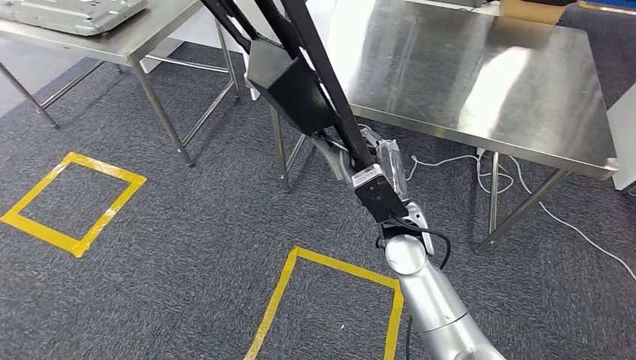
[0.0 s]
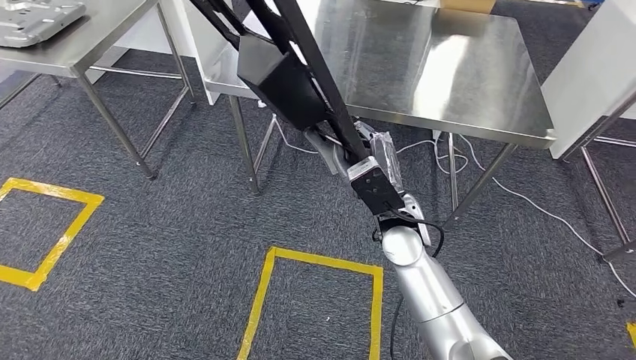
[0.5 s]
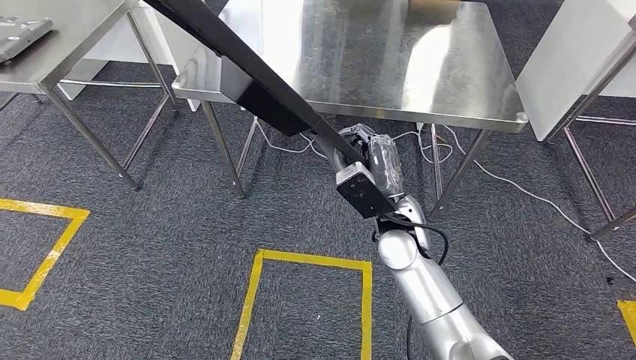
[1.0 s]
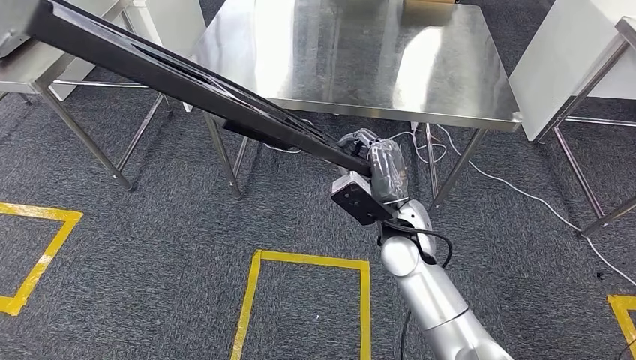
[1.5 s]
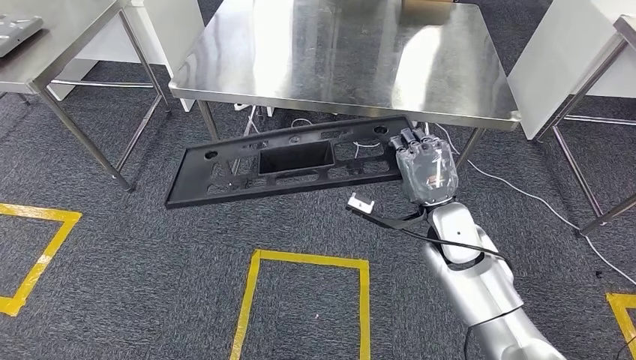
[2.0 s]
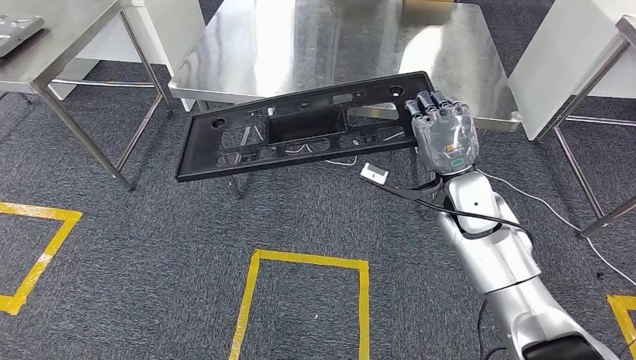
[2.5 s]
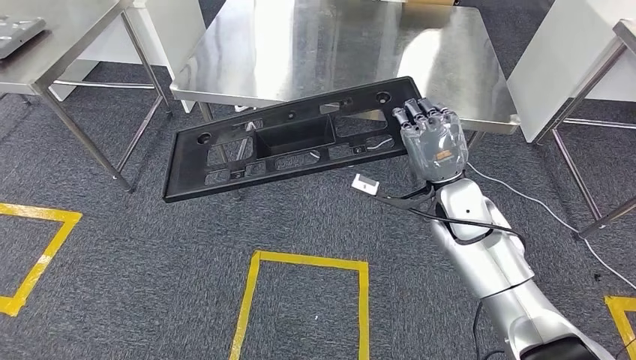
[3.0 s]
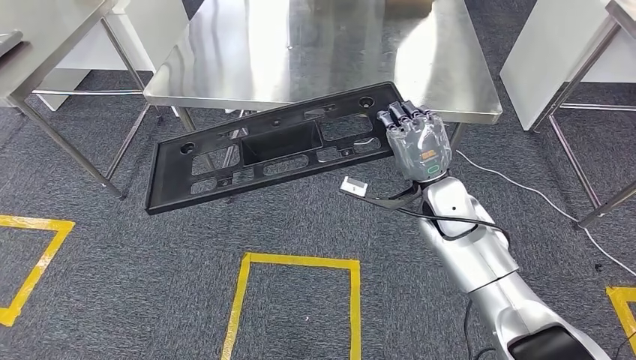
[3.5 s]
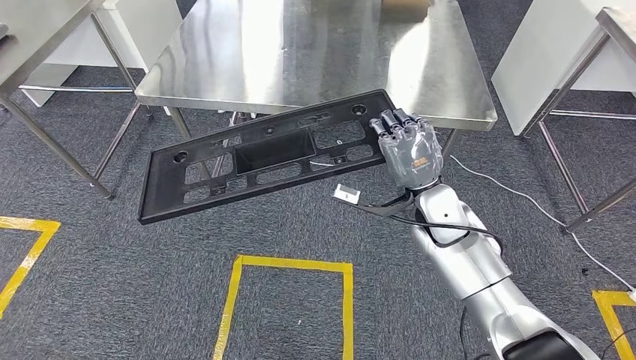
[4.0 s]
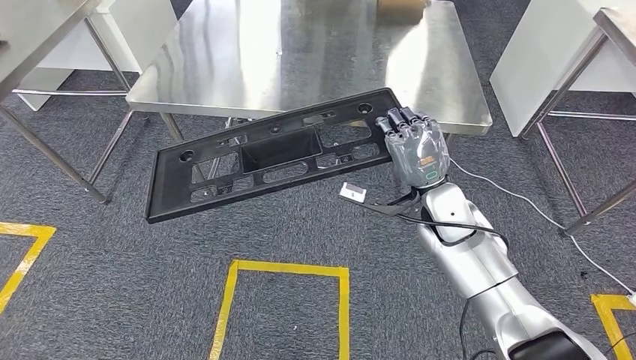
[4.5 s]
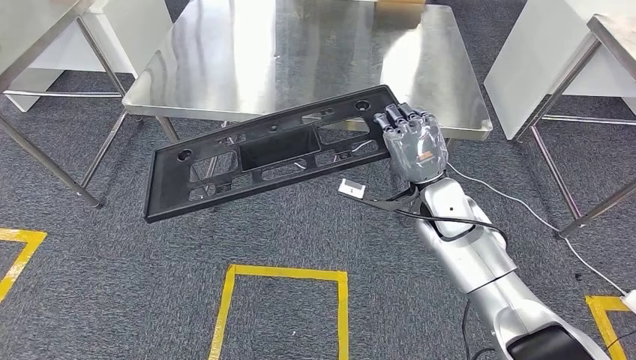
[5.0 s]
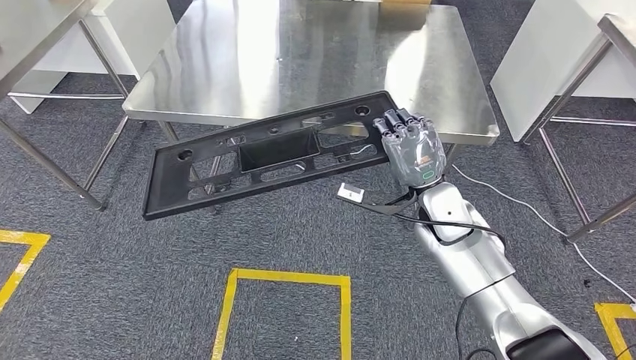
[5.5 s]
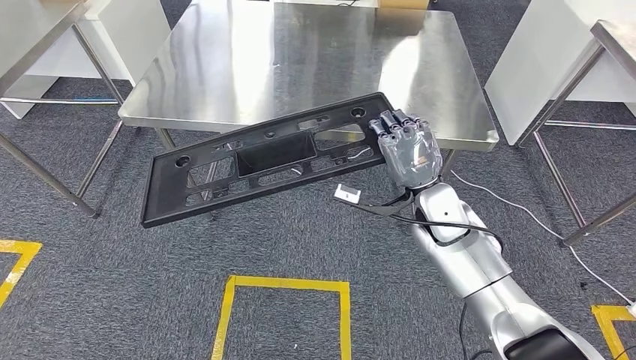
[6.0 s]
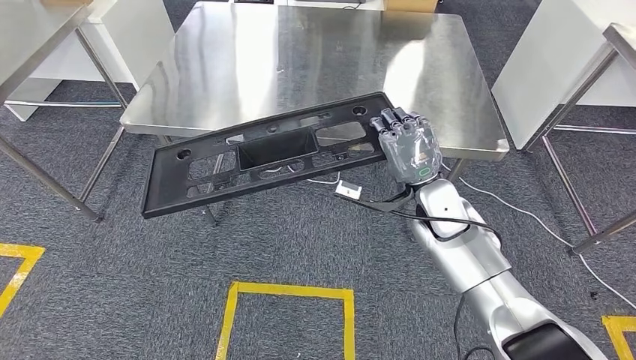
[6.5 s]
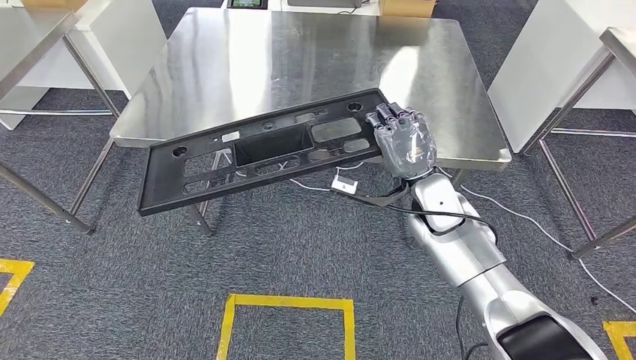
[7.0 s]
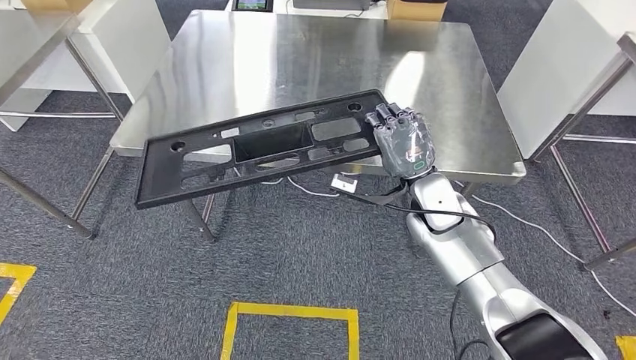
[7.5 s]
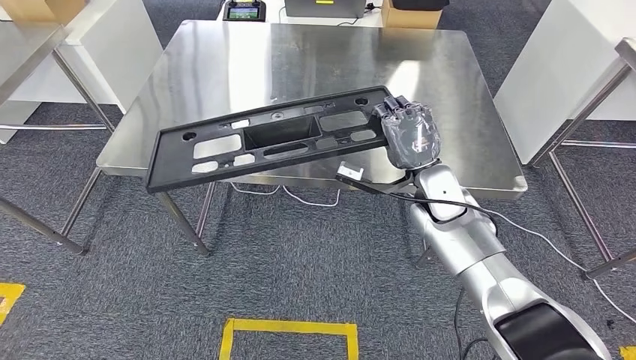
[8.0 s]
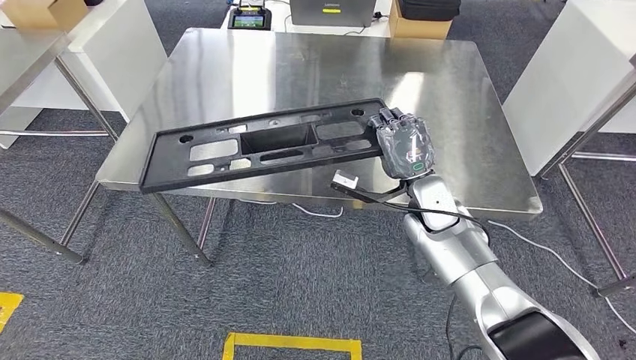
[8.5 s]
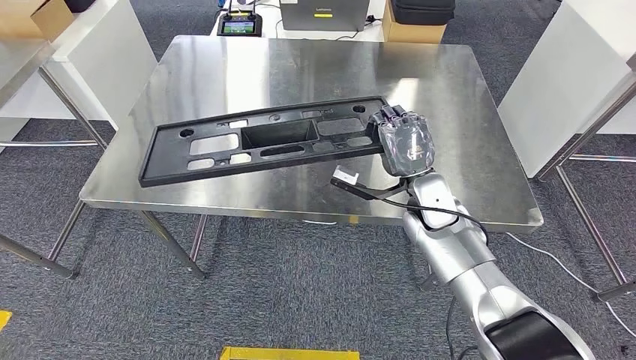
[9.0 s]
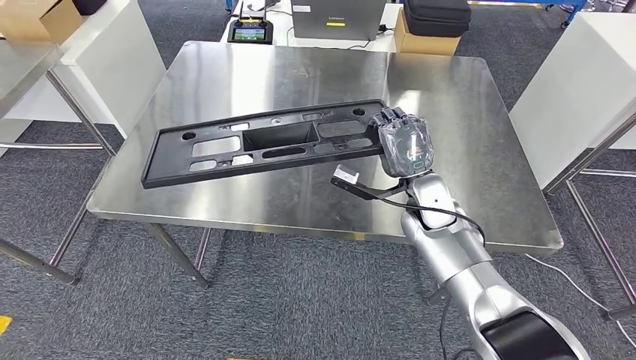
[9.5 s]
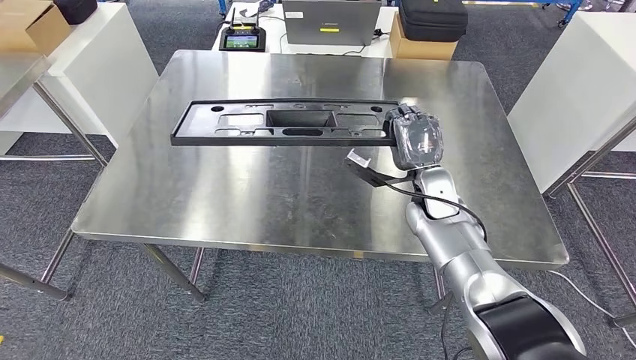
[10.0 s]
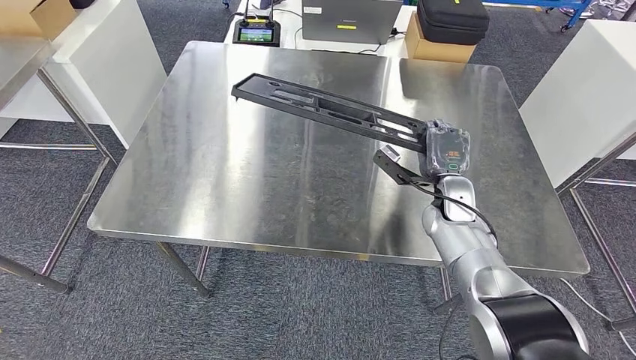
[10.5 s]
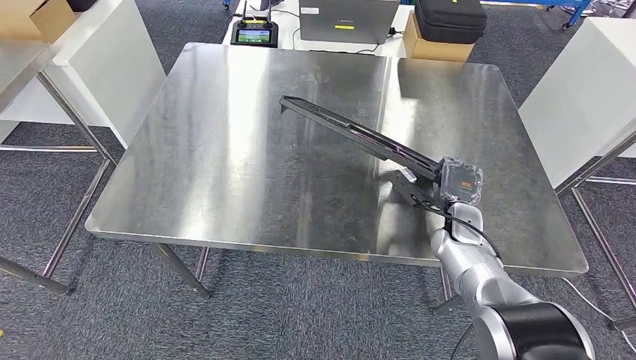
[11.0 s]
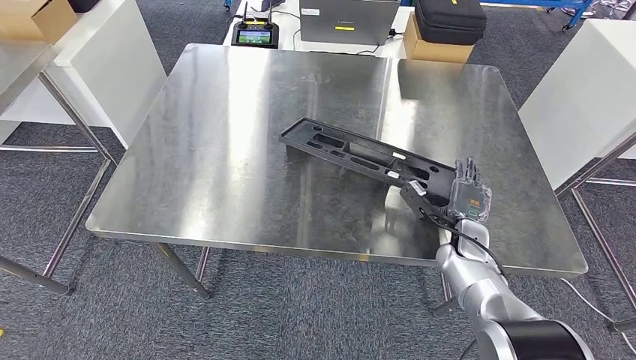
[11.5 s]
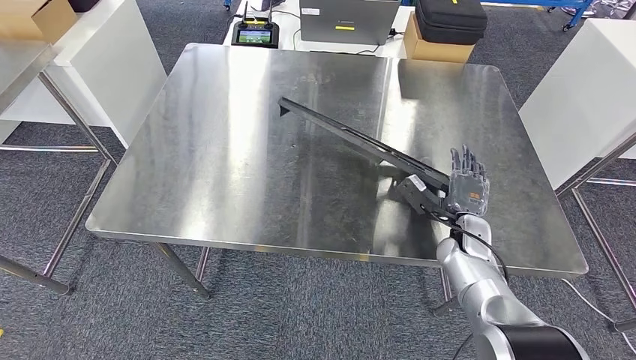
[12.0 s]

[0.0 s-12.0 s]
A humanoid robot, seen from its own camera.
Step, 0.0 to 5.5 s: Move the large material to the workbench.

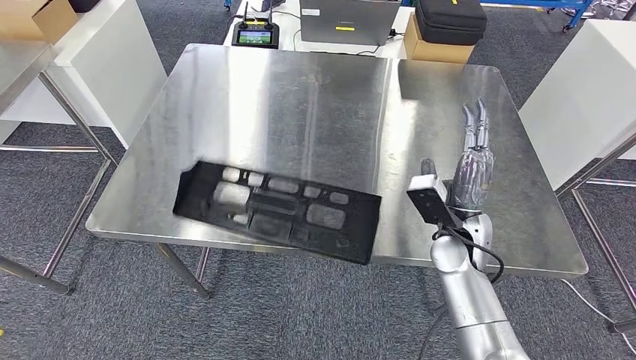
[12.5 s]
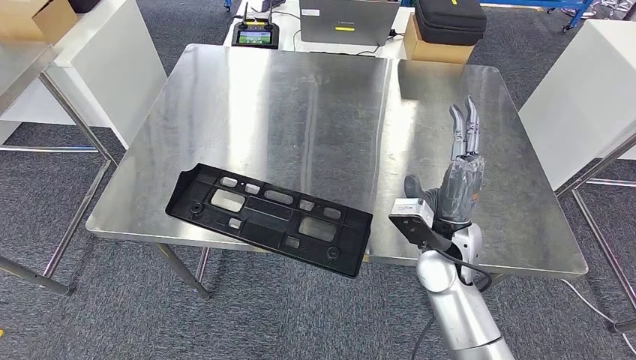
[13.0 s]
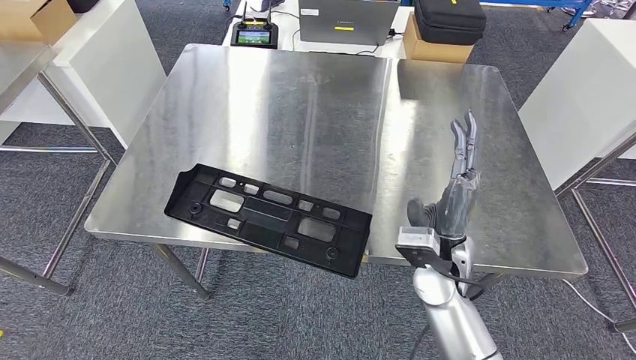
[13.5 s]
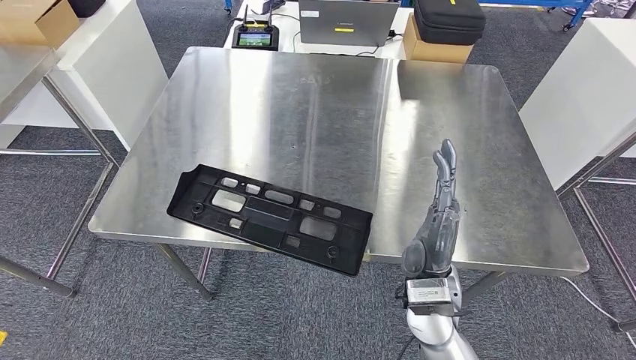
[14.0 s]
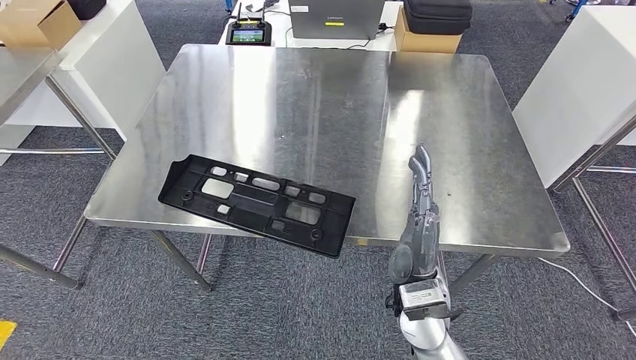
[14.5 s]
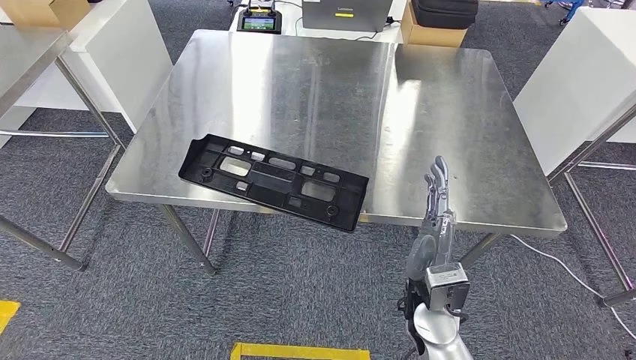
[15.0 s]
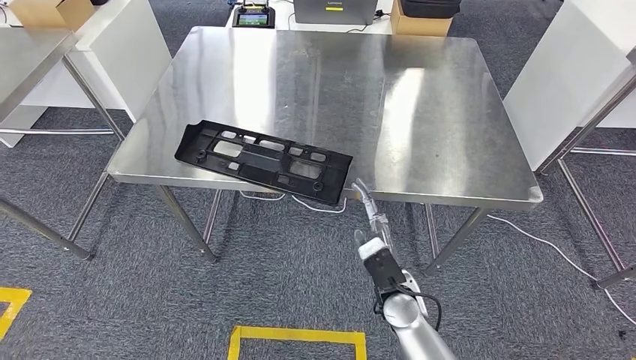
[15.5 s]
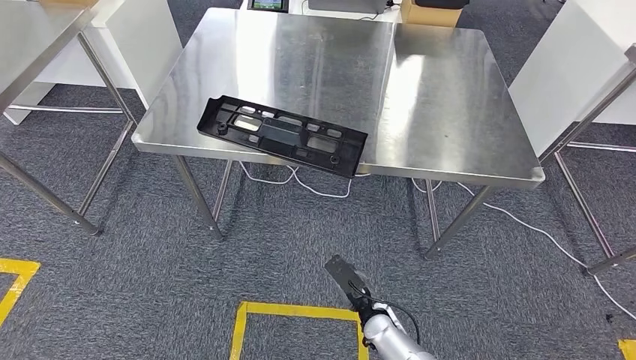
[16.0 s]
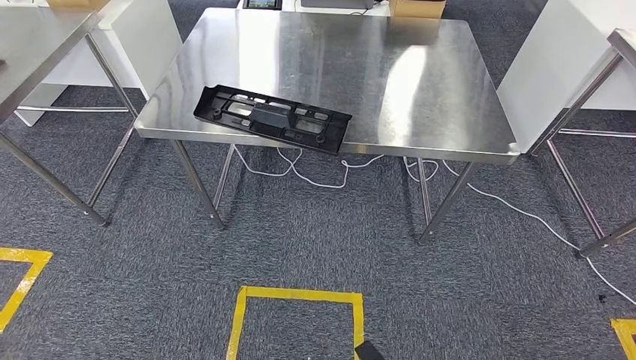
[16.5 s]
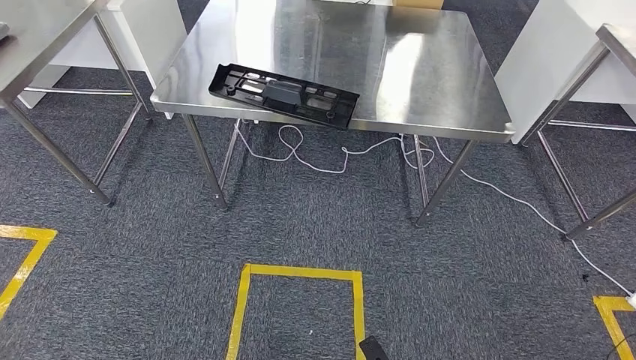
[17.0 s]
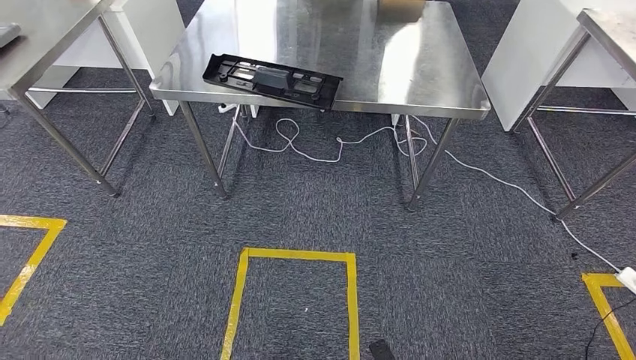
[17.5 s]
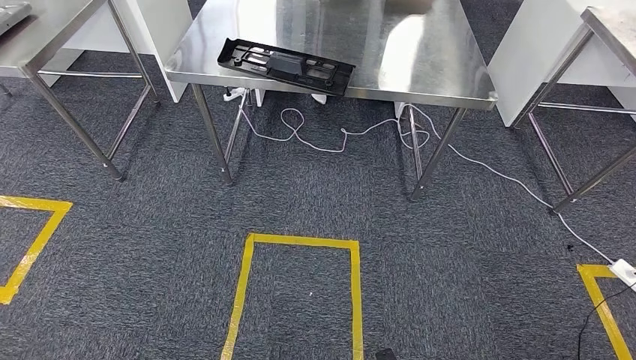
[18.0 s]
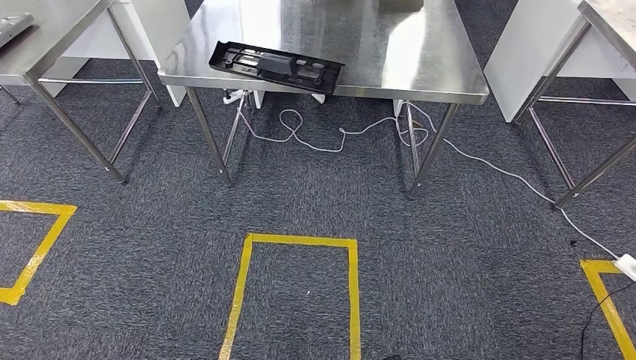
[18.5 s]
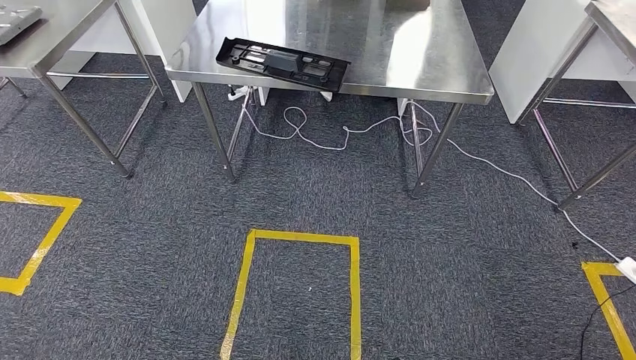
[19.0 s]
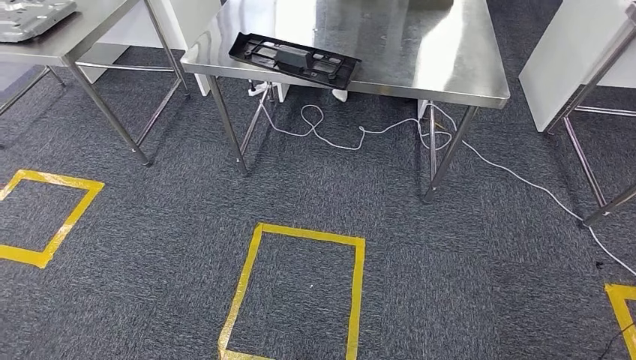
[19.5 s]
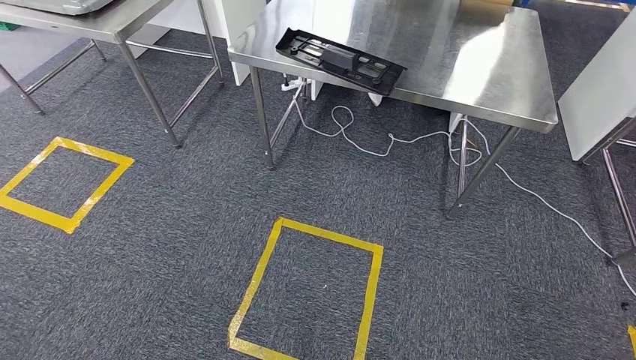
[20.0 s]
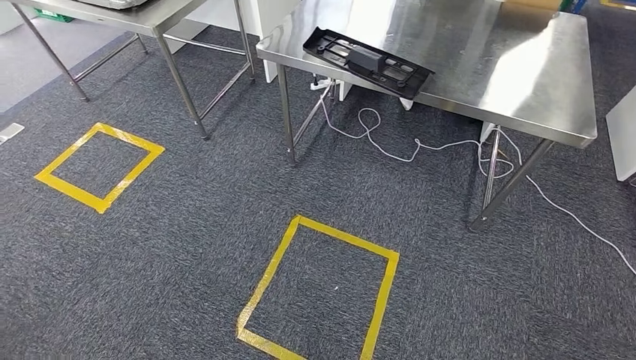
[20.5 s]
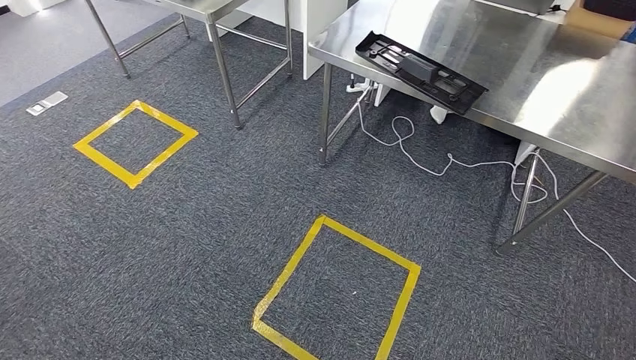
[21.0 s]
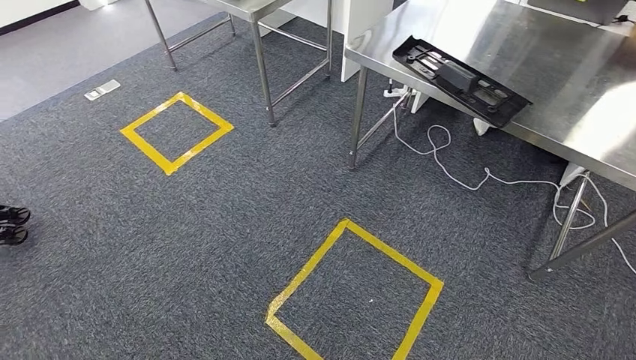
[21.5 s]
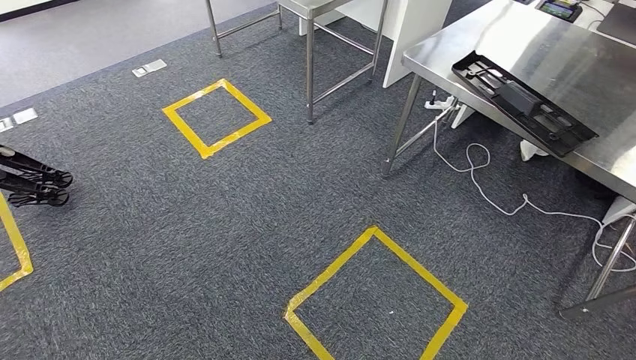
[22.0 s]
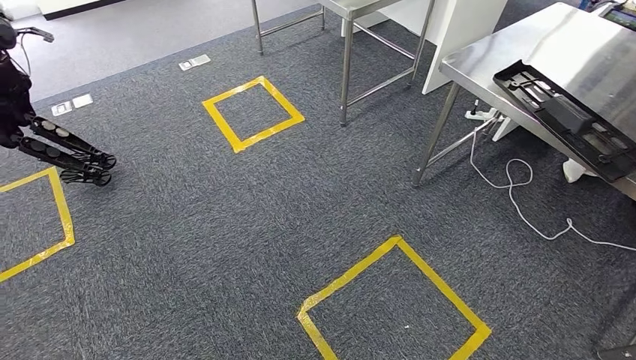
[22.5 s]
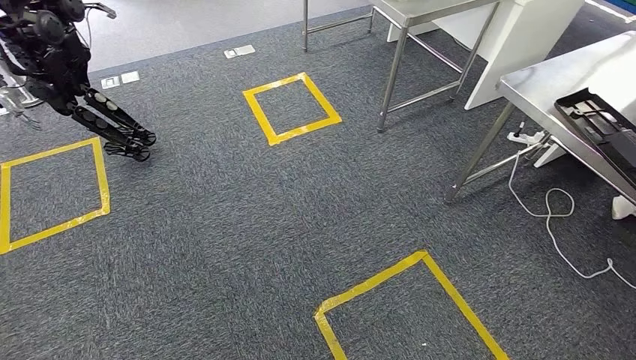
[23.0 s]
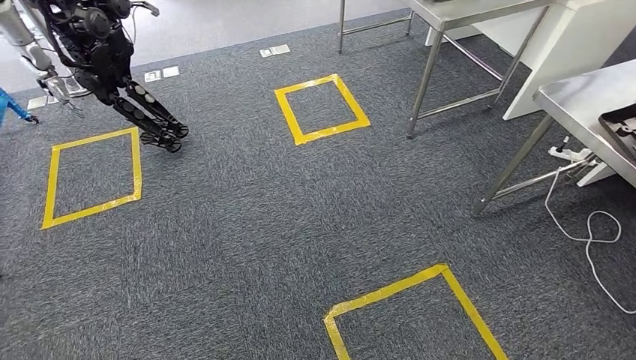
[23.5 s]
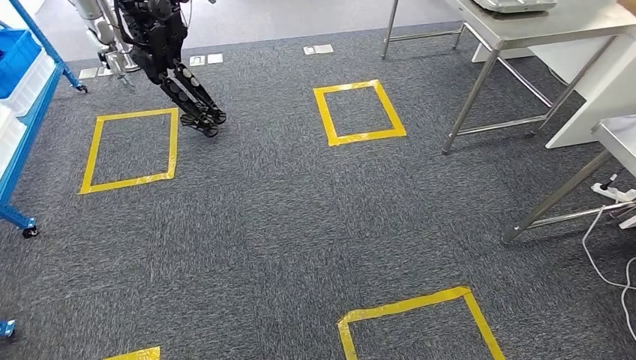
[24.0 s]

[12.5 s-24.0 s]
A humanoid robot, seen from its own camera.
Step, 12.5 to 17.0 s: Insert the large material into the corresponding slot on the workbench.
